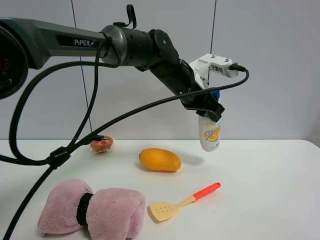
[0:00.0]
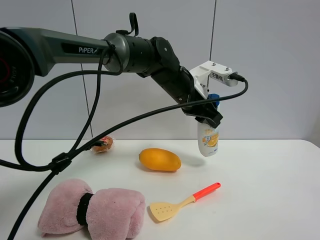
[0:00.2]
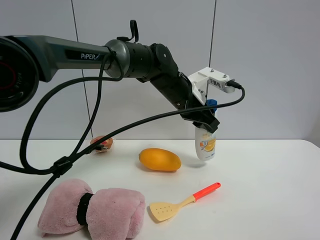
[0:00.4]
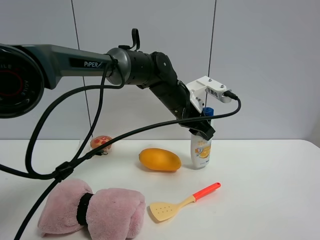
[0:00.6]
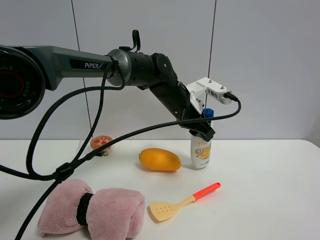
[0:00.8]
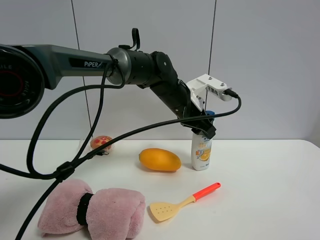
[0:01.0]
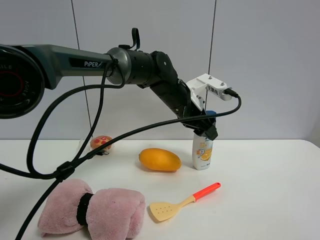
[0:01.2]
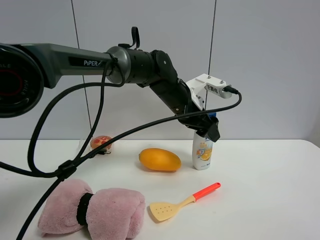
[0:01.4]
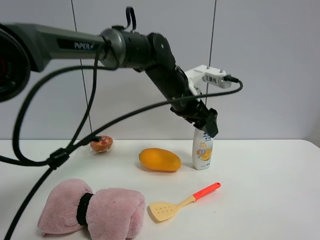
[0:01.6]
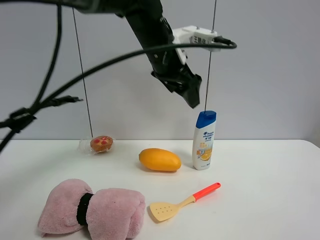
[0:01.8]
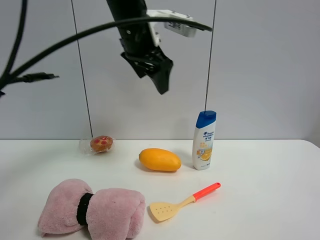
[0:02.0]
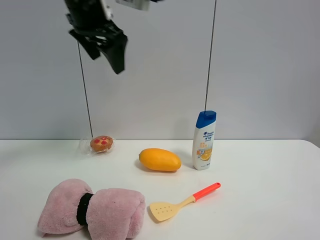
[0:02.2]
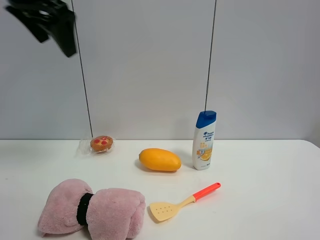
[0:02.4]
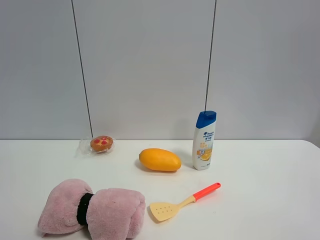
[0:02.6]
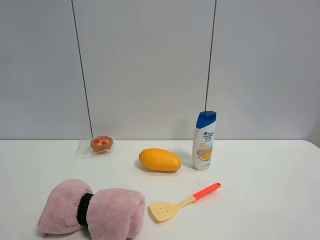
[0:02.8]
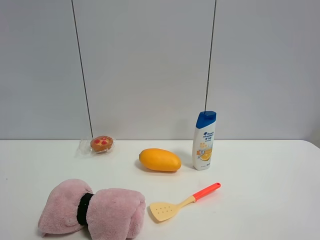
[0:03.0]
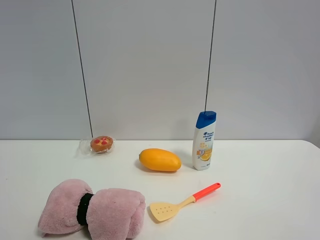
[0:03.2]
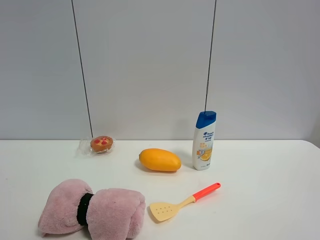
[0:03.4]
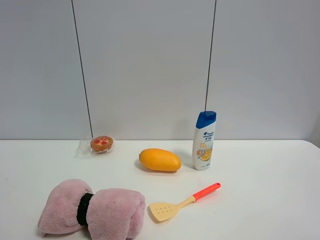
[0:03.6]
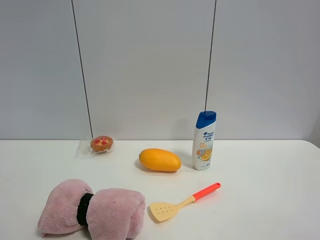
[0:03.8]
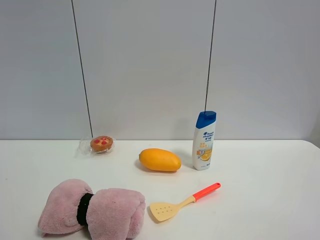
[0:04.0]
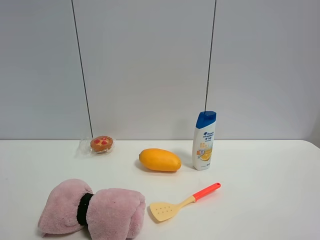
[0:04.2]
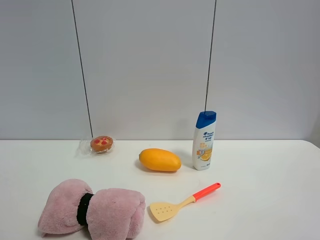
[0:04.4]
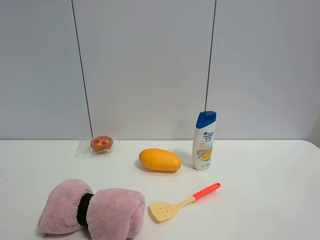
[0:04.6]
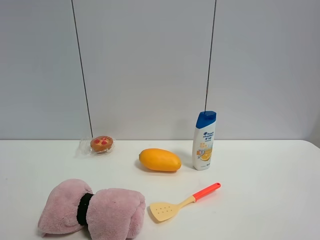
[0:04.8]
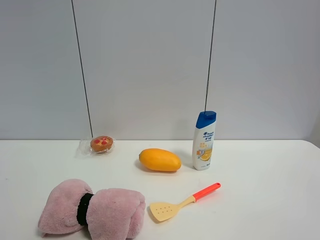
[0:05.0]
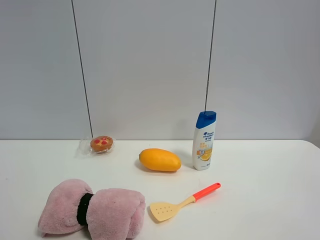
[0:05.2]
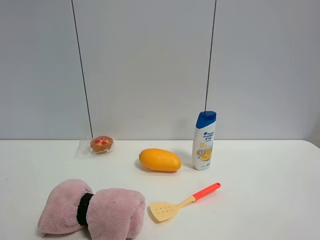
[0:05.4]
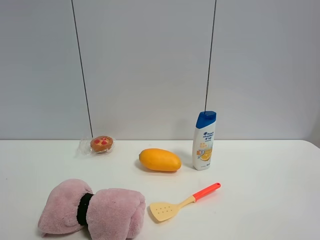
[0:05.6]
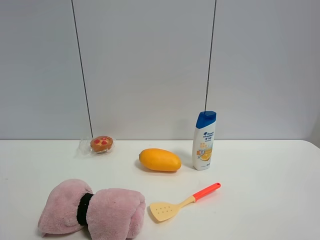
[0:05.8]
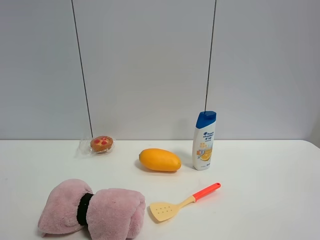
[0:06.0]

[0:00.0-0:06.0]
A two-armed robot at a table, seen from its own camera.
Task of the whole recording: the gripper move the object.
0:00.0 to 0:01.6: The left gripper opens.
0:01.6 to 0:03.0: The left gripper shifts roughly 50 cm backward, to the left and upward.
0:04.4 to 0:06.0: The two grippers keep their place.

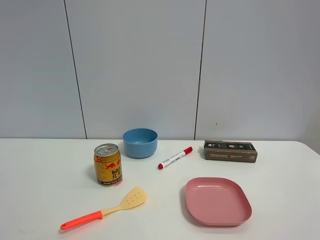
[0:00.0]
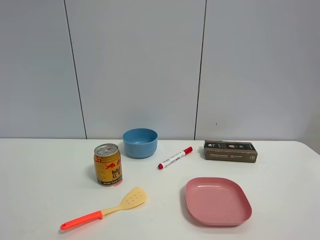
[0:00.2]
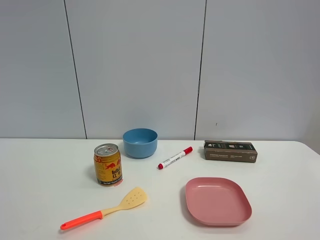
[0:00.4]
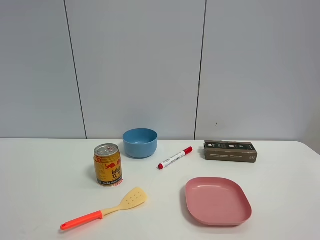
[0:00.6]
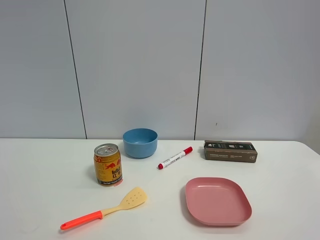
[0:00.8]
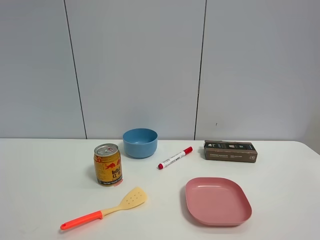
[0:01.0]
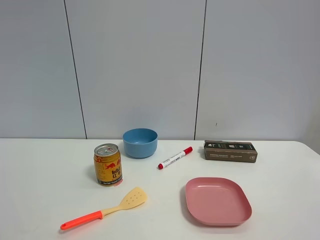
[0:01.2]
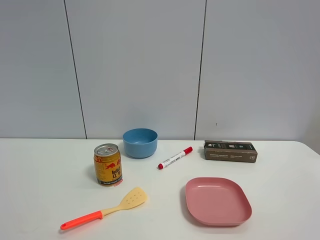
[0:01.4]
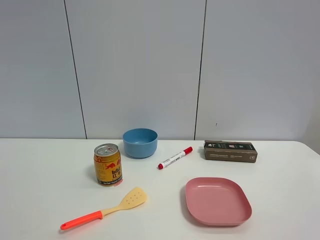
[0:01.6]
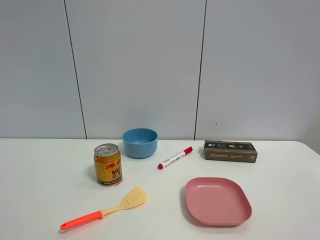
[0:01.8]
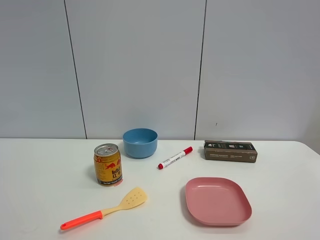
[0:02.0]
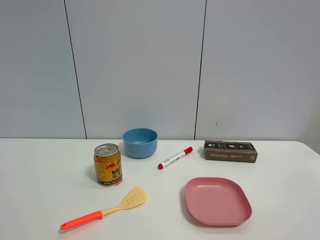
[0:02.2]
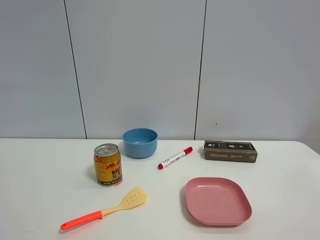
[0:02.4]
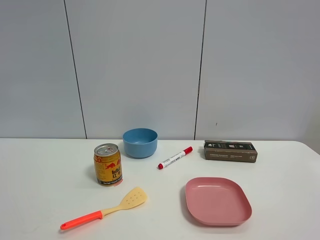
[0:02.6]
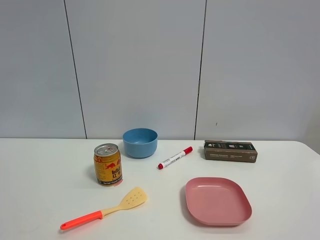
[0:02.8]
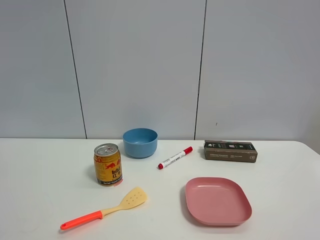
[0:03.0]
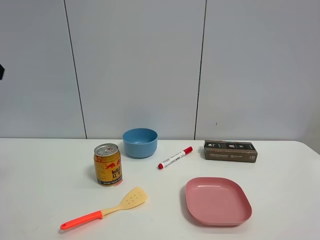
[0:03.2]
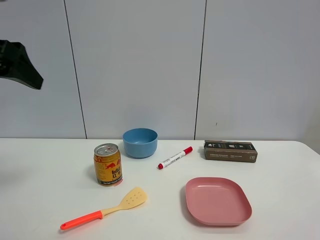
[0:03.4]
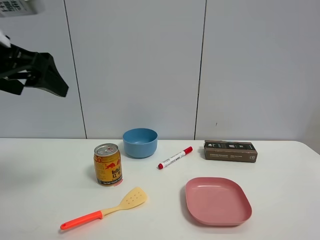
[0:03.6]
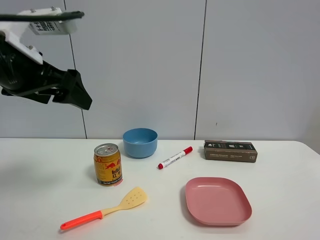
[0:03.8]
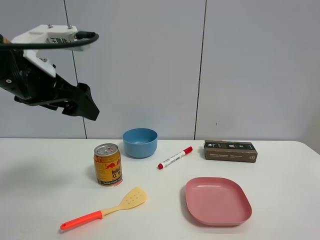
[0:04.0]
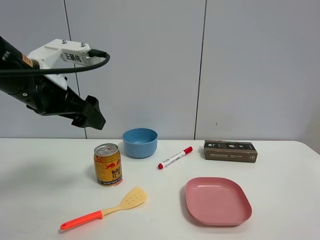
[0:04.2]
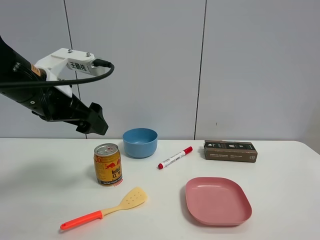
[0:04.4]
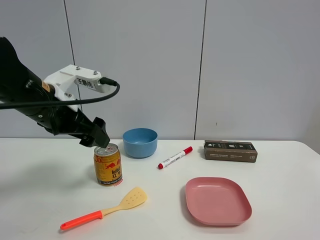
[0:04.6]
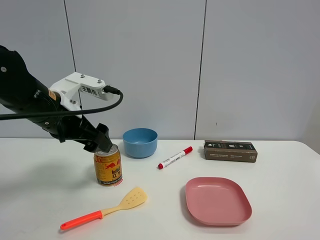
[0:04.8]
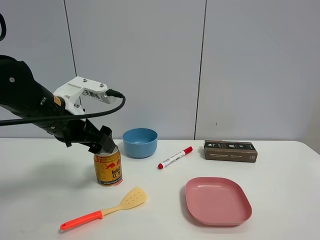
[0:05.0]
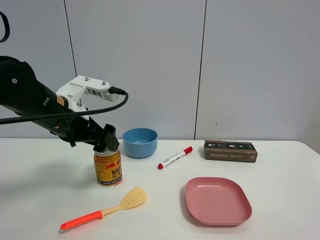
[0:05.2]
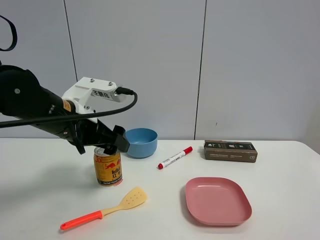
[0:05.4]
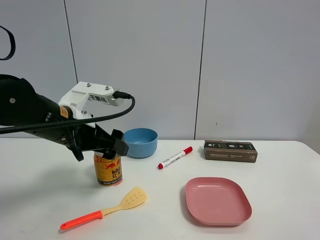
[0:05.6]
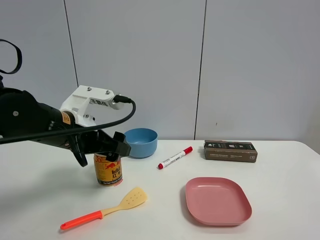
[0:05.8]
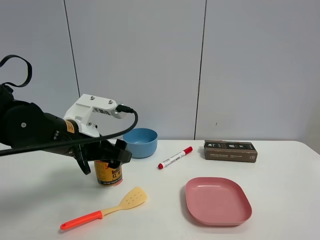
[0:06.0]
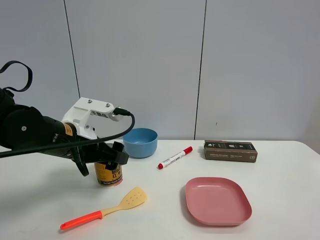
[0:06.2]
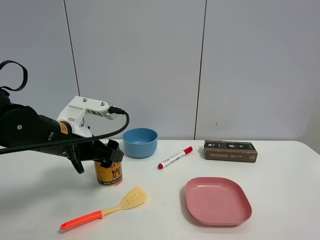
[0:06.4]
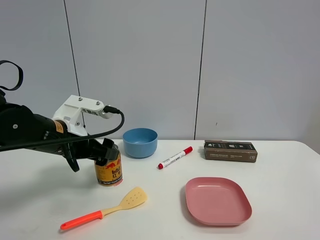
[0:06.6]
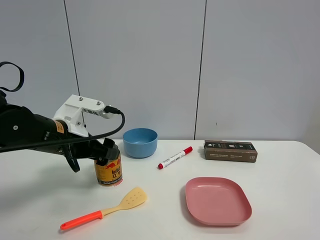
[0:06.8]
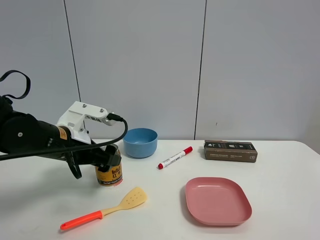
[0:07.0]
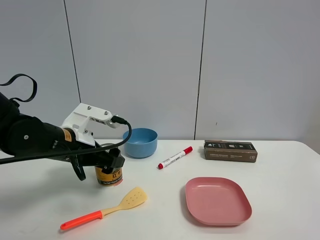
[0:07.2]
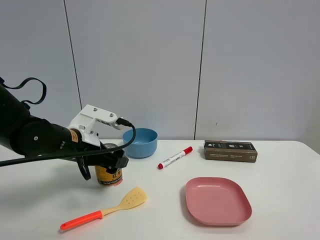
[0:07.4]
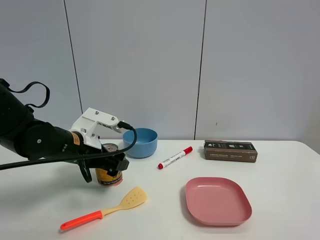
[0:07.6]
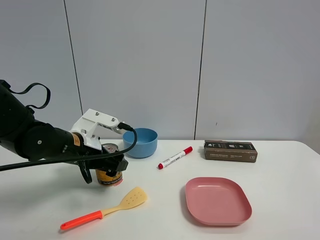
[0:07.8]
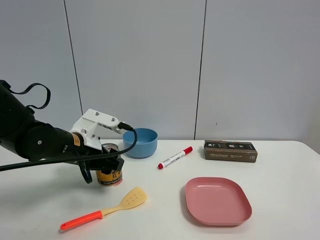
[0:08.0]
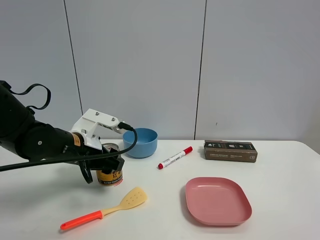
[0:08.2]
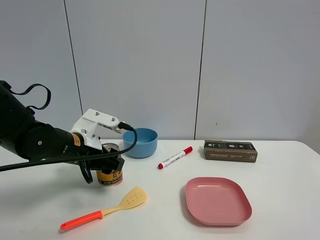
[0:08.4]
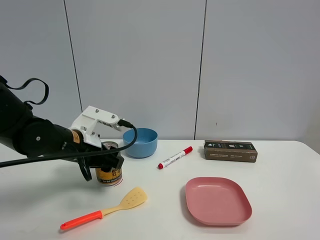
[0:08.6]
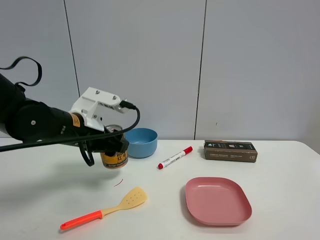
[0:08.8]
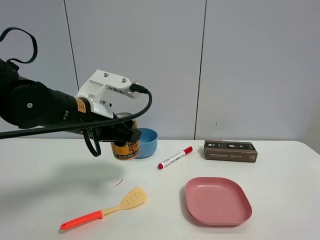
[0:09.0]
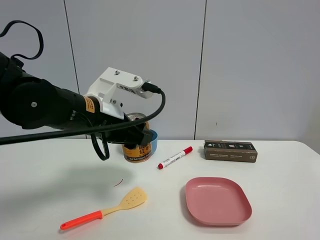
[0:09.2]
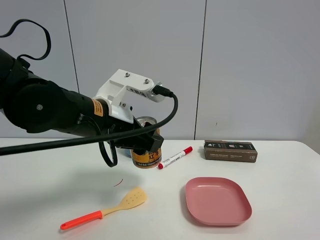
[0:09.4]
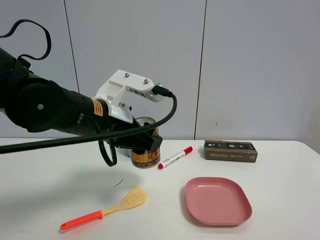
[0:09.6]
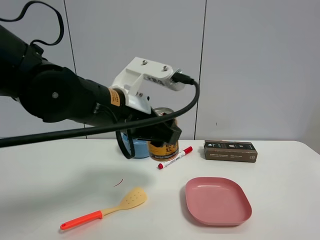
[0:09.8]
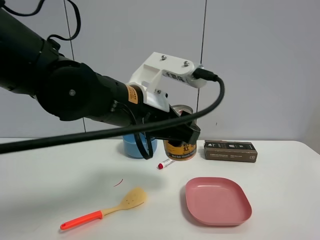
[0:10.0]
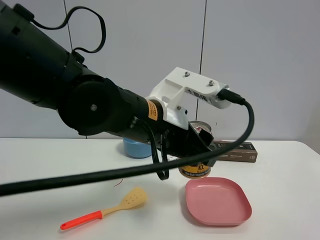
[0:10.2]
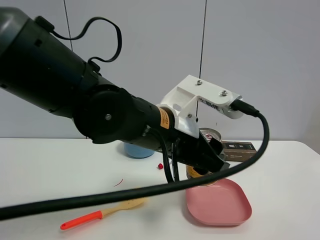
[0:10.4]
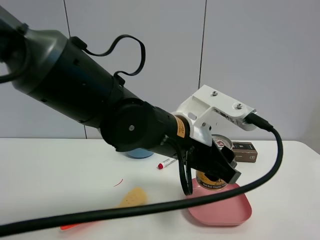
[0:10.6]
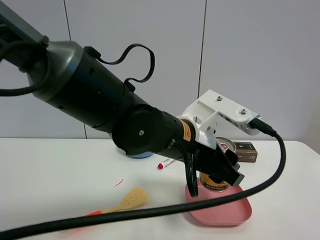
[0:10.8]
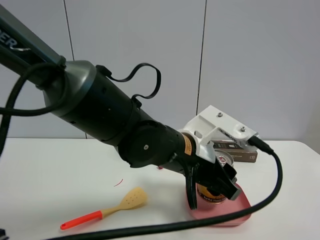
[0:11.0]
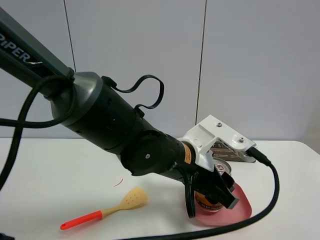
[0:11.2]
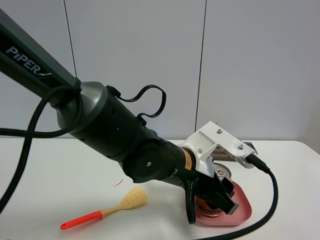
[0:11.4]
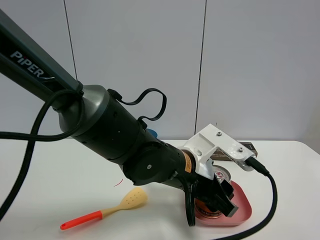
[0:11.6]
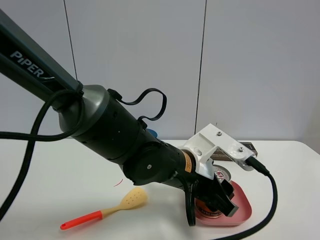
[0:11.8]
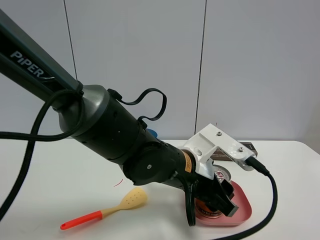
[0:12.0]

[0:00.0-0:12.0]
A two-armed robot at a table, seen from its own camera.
Task of the whole recording: the gripper move the object.
Step, 0:00.0 to 0:08.0: Grasp the red bull with the left gripper.
0:00.0 to 0:01.6: Both grippers stay about where they are.
0:03.0 to 0:04.4: The left gripper moves to the right, downward and forward, roughly 20 cm.
0:04.4 to 0:06.0: The left gripper travels downward by about 10 cm.
0:06.0 to 0:07.6: The left gripper shifts by some 5 cm.
0:07.6 to 0:09.0: The left gripper moves upward, about 10 cm, and closes up.
0:09.0 to 0:10.4: The left gripper heads to the right and backward, covering some 15 cm.
0:10.4 to 0:12.0: The left gripper is displaced downward by some 10 cm.

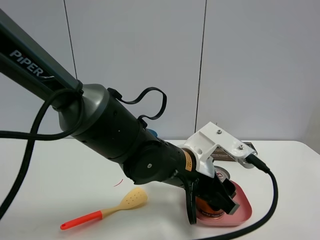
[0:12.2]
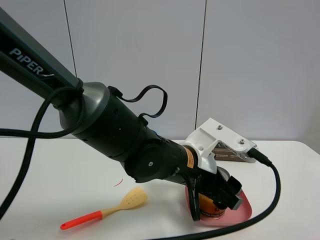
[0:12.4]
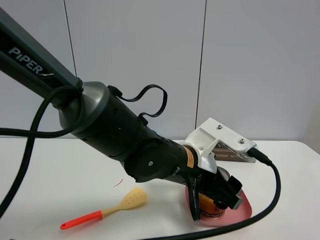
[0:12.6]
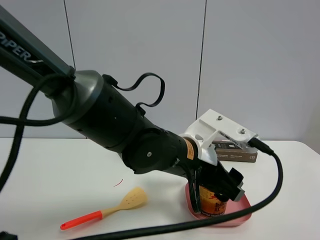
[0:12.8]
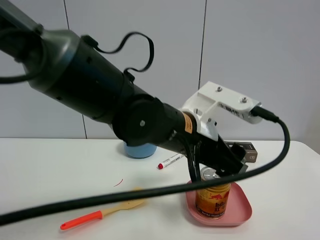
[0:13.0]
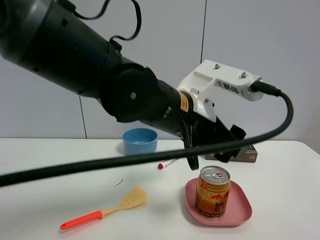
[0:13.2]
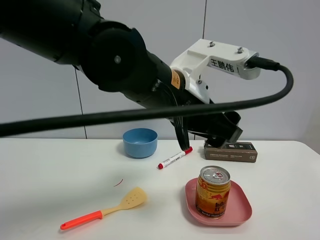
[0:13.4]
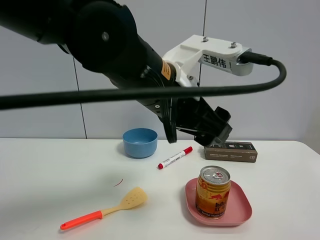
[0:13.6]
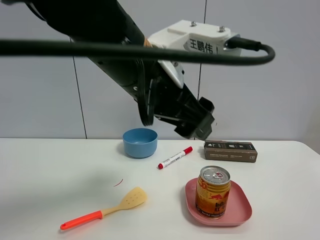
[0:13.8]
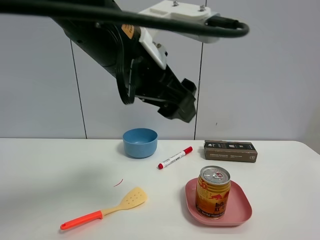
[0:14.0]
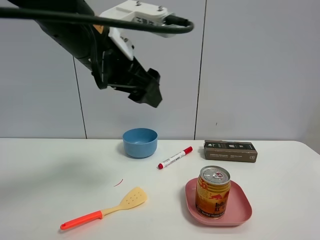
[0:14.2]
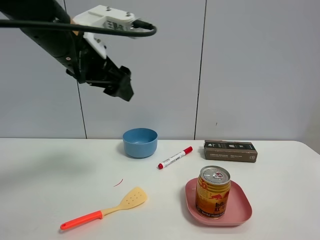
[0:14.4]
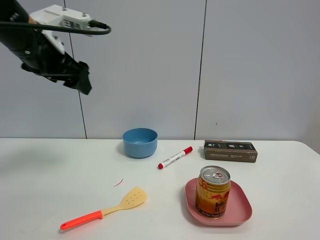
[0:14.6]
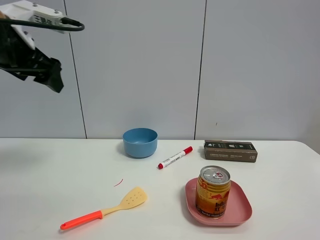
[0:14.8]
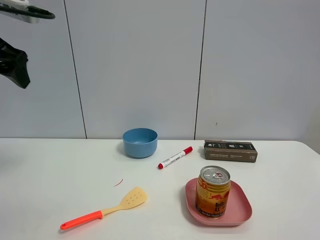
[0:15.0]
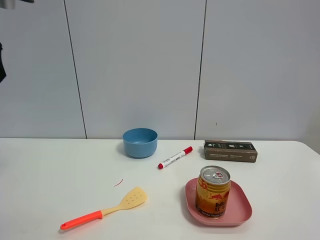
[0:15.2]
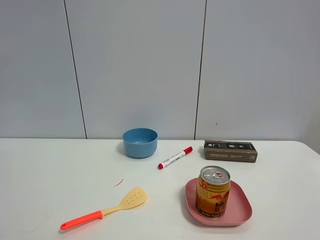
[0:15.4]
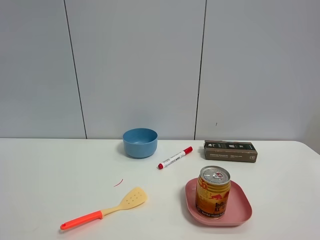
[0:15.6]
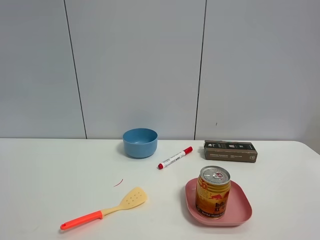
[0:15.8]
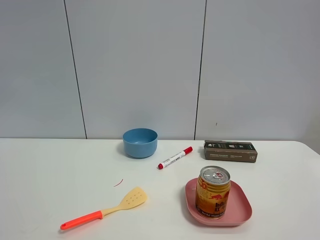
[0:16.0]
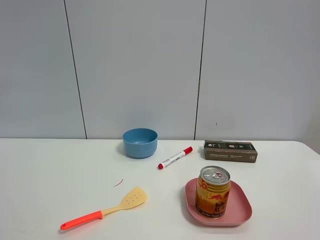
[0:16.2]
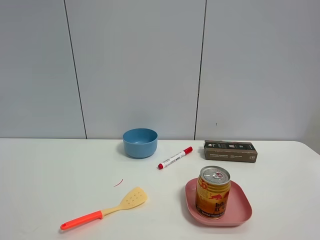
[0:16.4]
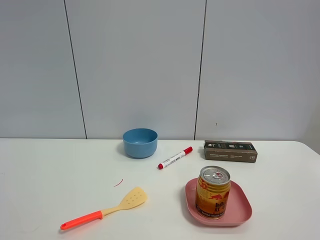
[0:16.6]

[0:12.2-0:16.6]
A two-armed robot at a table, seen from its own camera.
Task of the whole recording: the gripper move the object.
0:12.2 to 0:13.6: The left gripper shifts approximately 15 cm upward.
0:13.6 to 0:15.2: The left gripper moves to the left, about 30 cm.
